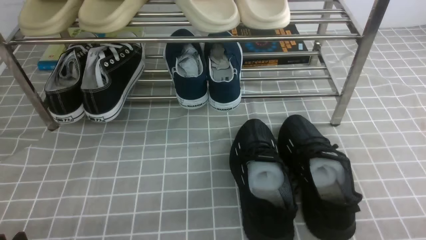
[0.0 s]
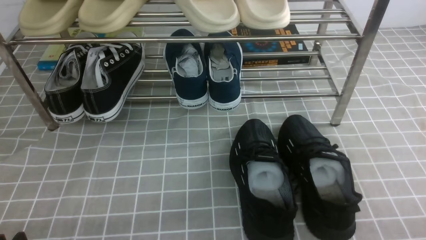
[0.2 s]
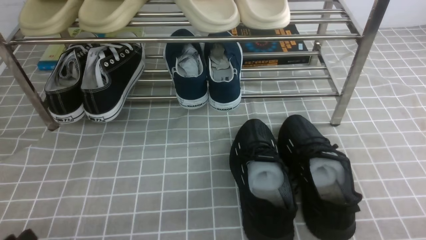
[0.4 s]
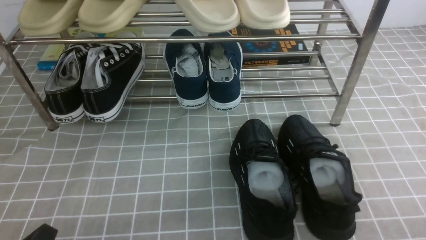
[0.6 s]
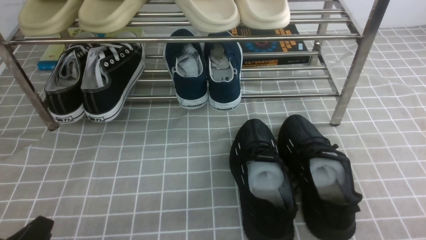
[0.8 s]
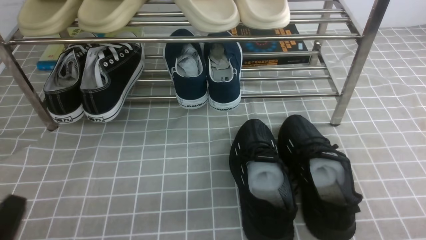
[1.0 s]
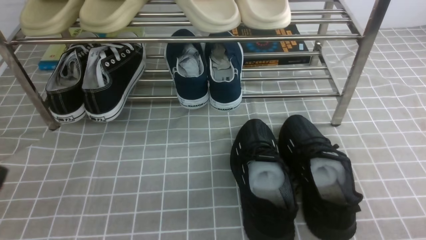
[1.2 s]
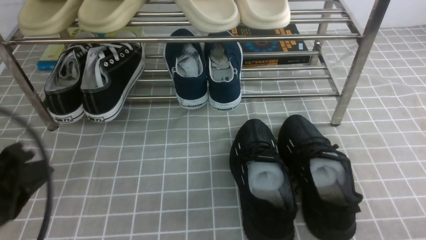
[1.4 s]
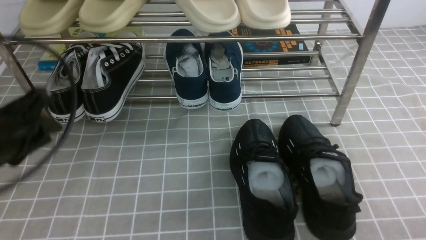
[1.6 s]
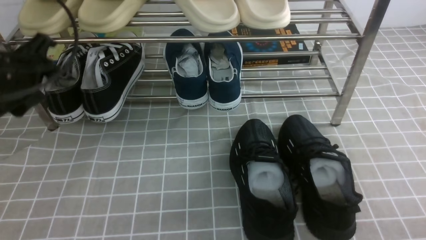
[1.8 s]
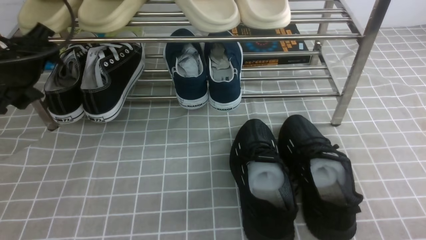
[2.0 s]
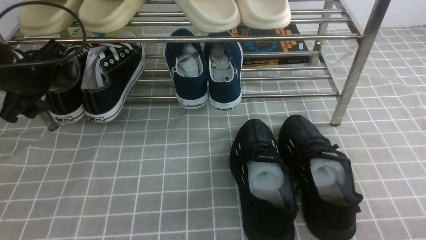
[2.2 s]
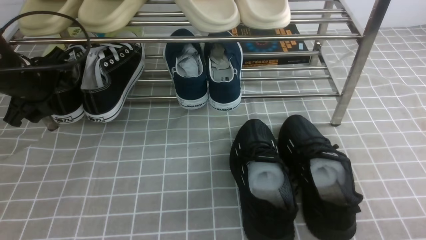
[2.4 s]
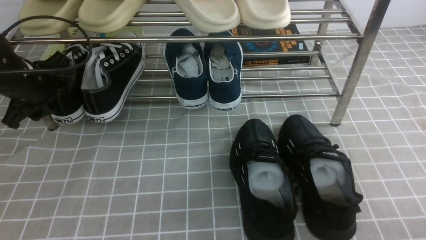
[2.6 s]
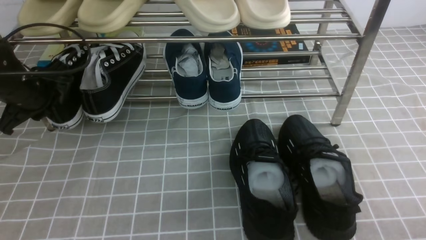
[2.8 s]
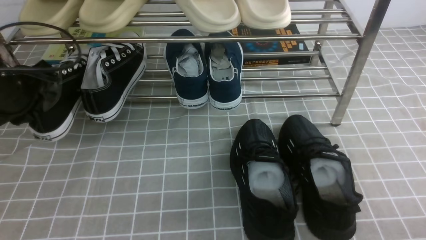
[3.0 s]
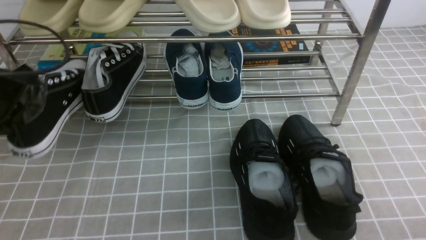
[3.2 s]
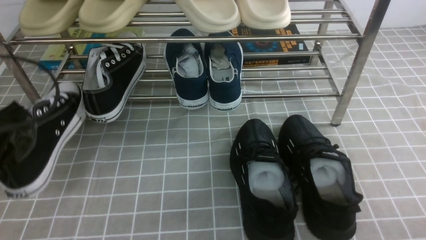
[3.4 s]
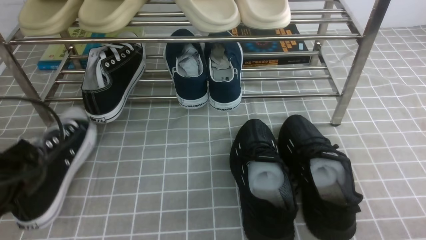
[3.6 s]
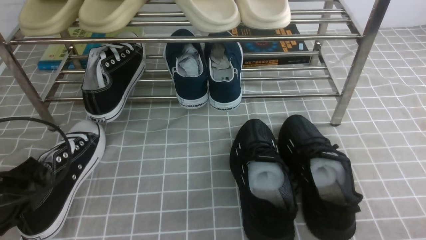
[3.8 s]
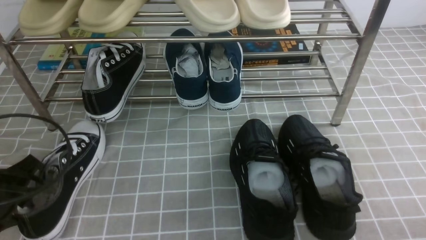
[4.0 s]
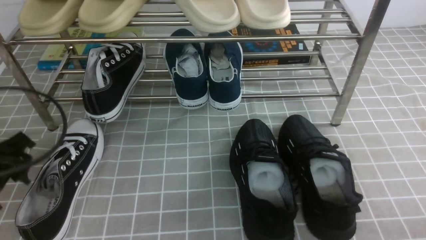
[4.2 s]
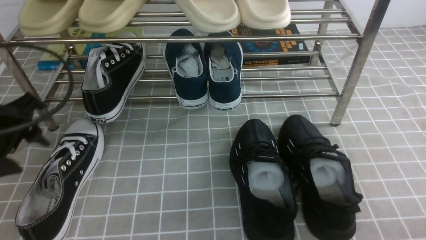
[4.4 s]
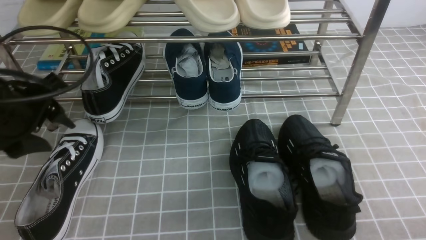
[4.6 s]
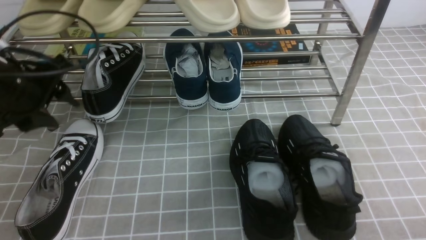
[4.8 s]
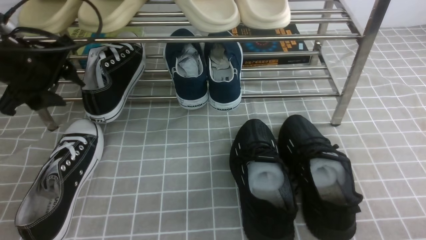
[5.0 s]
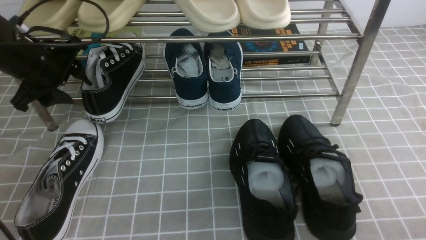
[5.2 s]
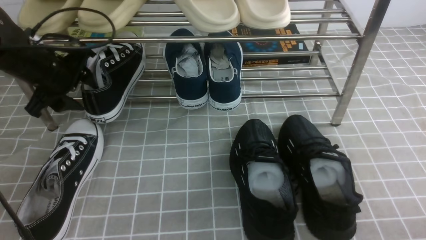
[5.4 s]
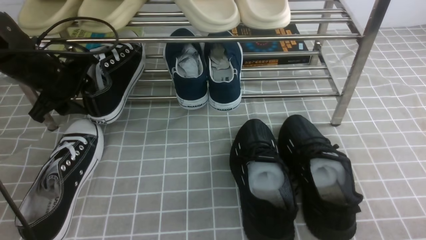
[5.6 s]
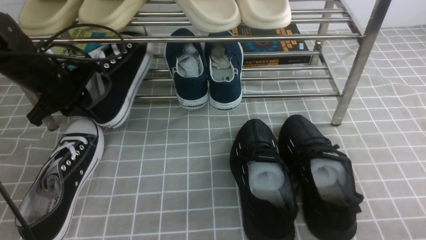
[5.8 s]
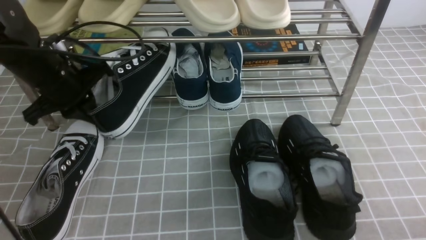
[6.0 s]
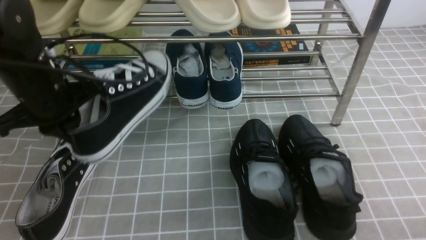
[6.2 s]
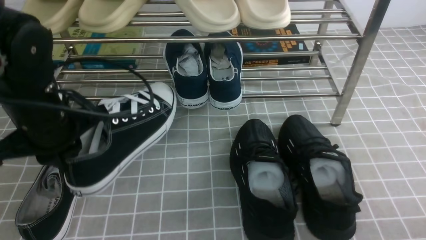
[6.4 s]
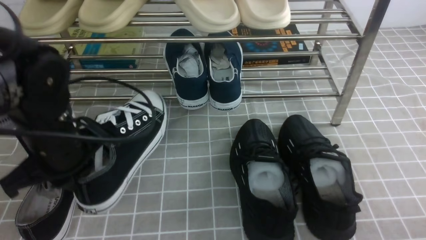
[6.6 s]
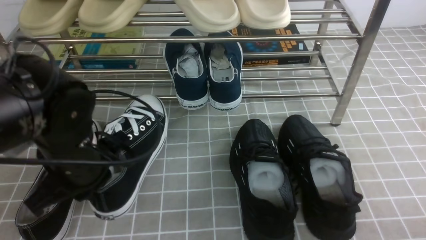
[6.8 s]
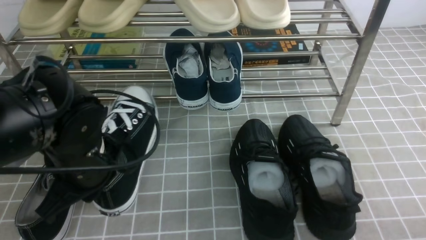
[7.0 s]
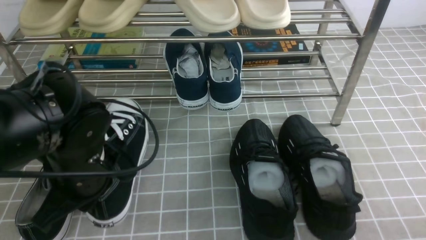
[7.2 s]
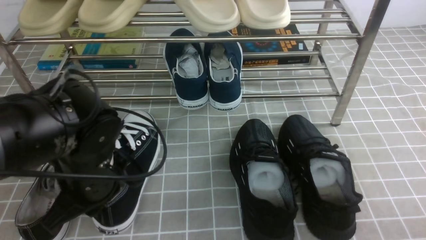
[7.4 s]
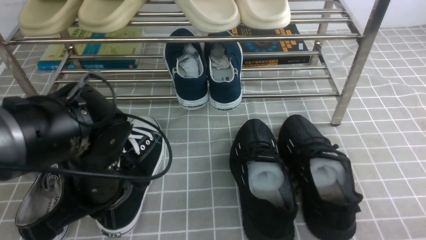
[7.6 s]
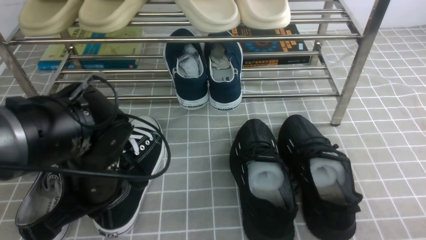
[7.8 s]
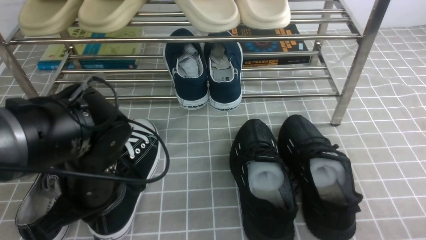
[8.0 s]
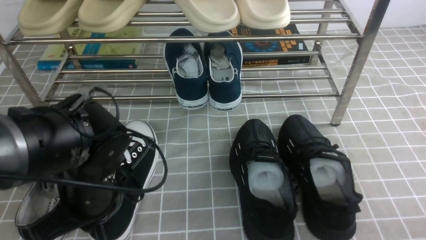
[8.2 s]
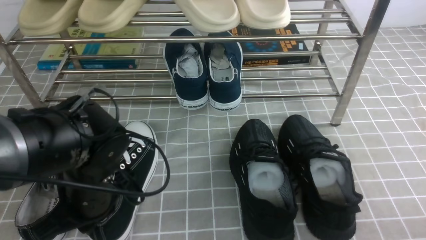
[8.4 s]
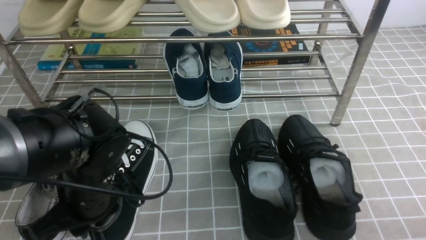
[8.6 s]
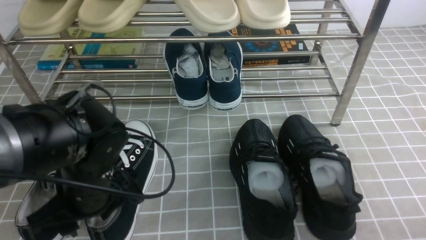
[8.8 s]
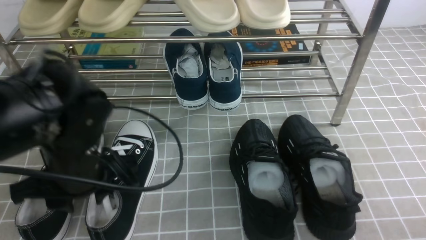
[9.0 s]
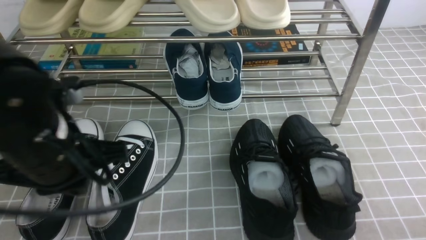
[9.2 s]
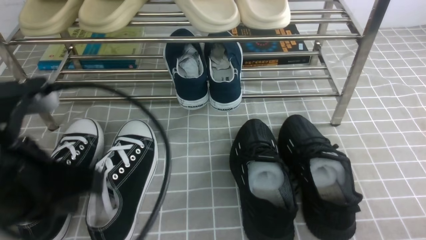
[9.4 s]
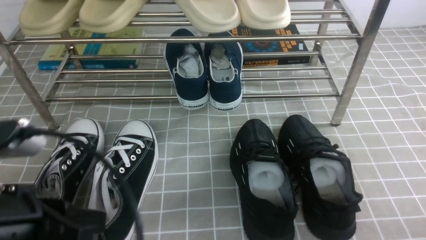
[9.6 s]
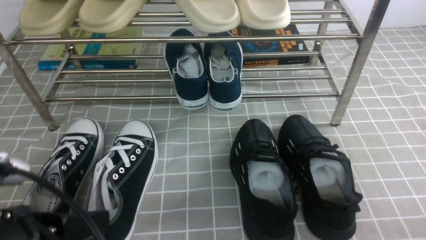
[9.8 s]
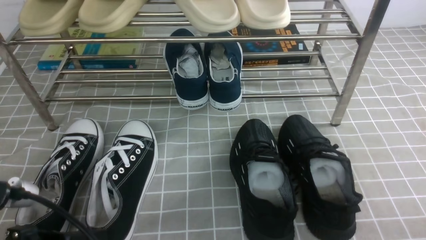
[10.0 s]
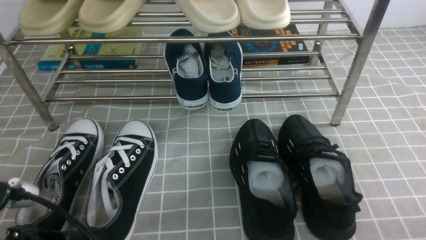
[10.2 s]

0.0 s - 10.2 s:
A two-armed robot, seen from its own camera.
Step, 0.0 s - 2.6 s: use the left arm to clamp a shoe on the left side of the shoe rack.
Step, 2.8 s - 4.0 s: Use your left arm to remove the clamped shoe from the shoe rack and put it down.
Step, 4.2 s - 5.6 s: use the left arm to clamp a shoe on the left side of the shoe rack.
Step, 6.0 s - 9.0 s: Use your left arm to remove the clamped shoe from the shoe rack and put it down.
0.0 s - 1.4 s: The left gripper is displaced upward and forward by approximately 15 cm.
1.4 s - 3.0 s: The left gripper travels forward by approximately 20 cm, and opens, then closes again.
3.0 s - 4.4 s: The left gripper moves backward, some 10 cm, and opens.
4.4 s - 5.8 s: The left gripper moves forward, about 15 cm, and closes.
5.8 s - 7.2 s: The left gripper travels backward and to the right by roughly 20 cm.
7.2 s - 8.8 s: The left gripper opens.
8.8 s - 10.2 s: The left gripper travels backward by about 15 cm, and closes up.

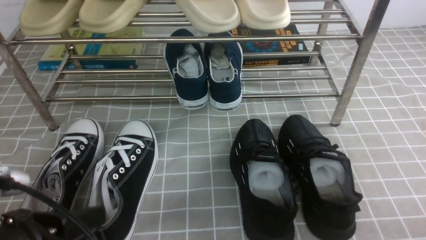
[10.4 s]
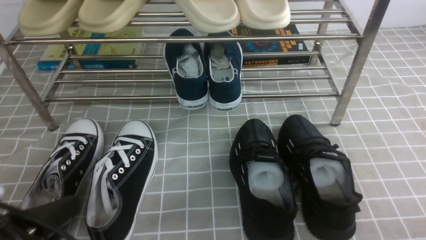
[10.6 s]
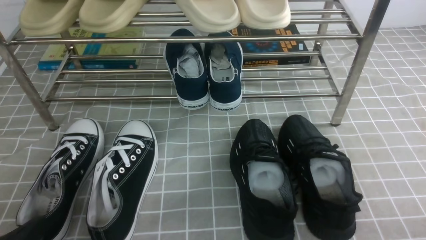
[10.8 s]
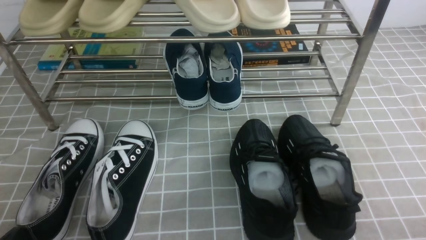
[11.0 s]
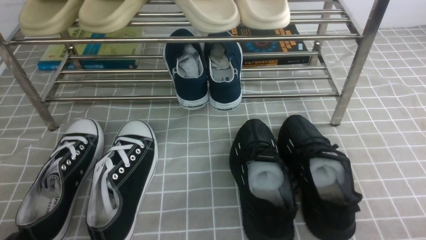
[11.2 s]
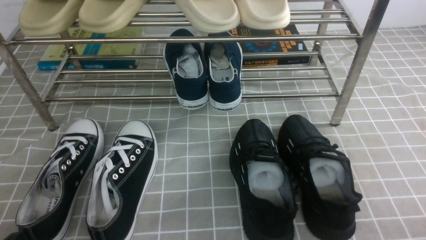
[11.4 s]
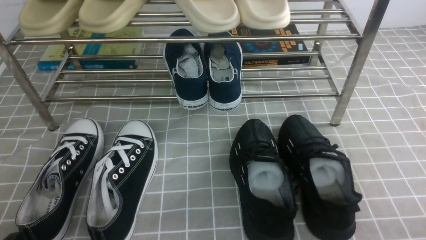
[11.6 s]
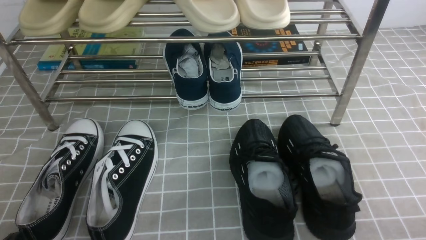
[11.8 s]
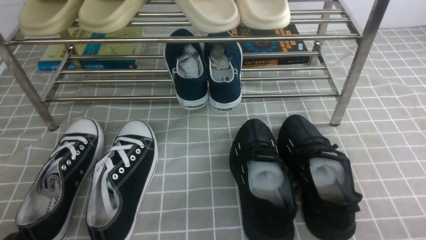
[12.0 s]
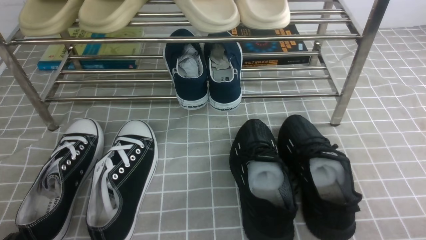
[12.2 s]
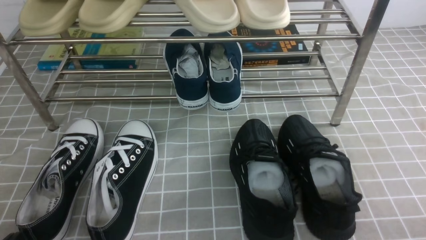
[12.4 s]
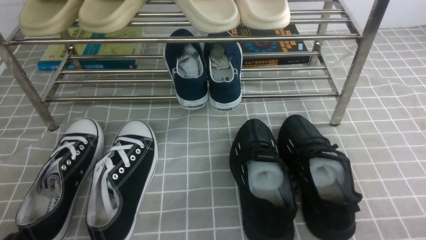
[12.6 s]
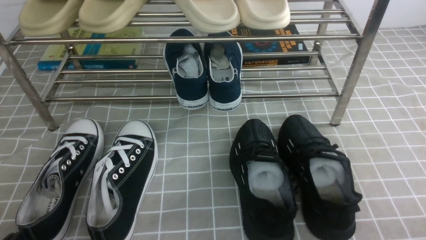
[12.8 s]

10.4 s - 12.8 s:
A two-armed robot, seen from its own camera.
10.4 s - 11.6 s: The left gripper goes approximately 10 cm downward and to the left.
11.6 s - 12.8 s: Both grippers stay about where they are.

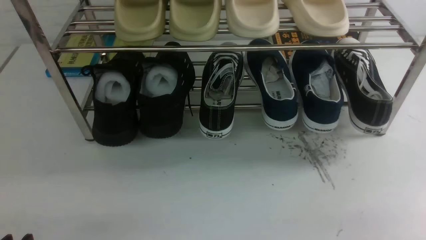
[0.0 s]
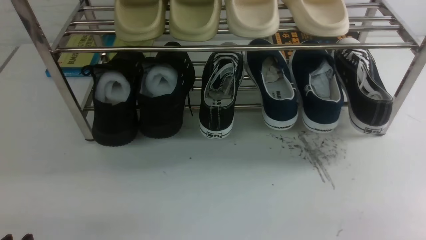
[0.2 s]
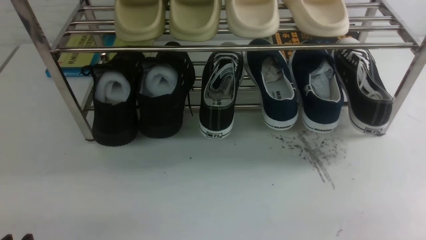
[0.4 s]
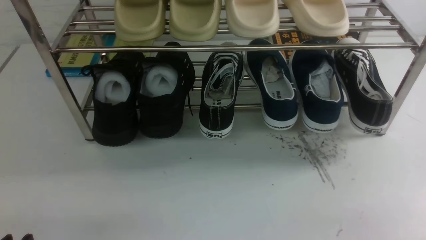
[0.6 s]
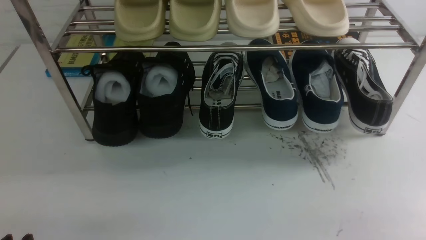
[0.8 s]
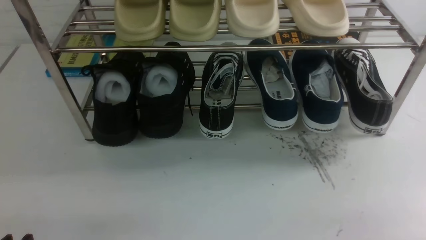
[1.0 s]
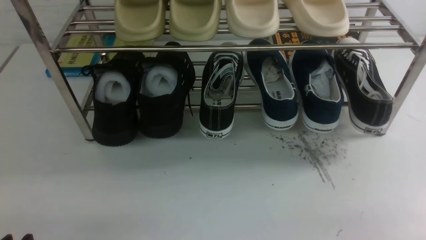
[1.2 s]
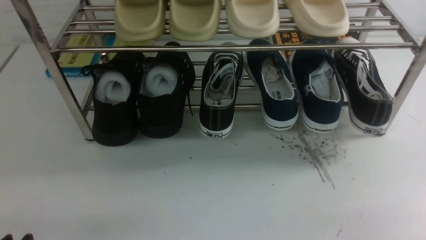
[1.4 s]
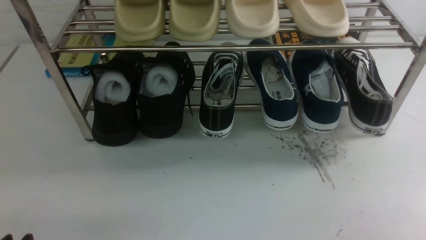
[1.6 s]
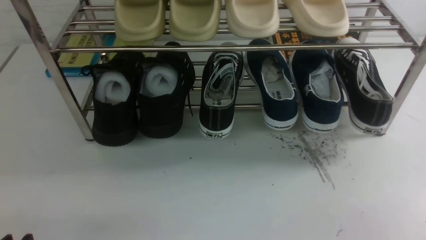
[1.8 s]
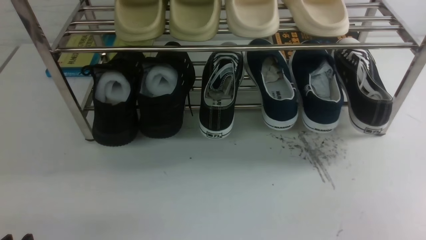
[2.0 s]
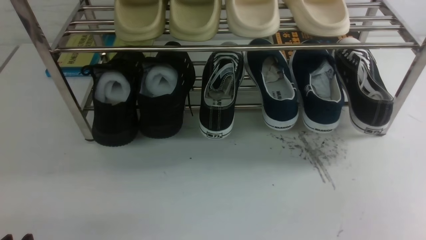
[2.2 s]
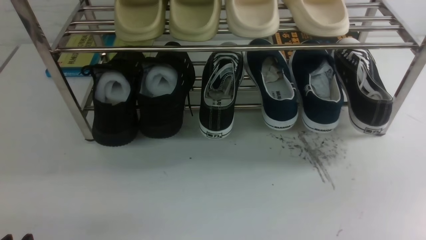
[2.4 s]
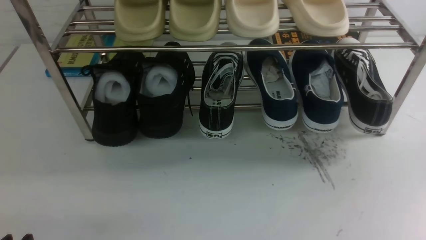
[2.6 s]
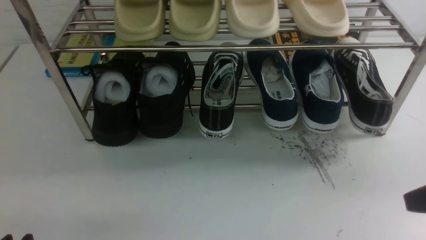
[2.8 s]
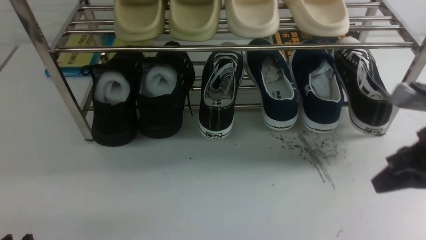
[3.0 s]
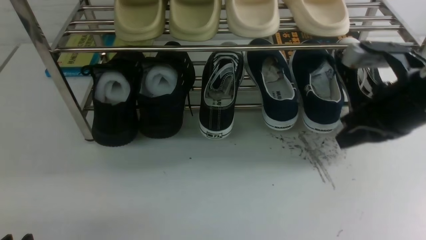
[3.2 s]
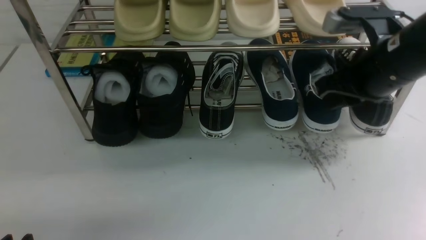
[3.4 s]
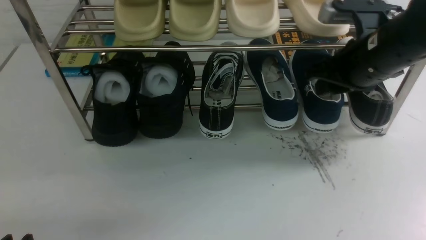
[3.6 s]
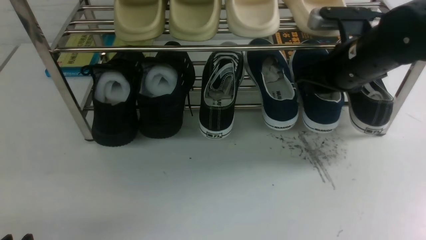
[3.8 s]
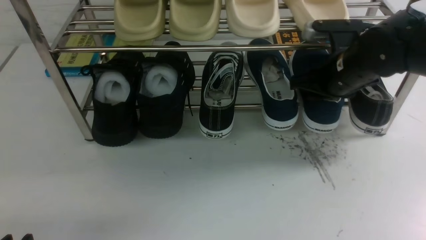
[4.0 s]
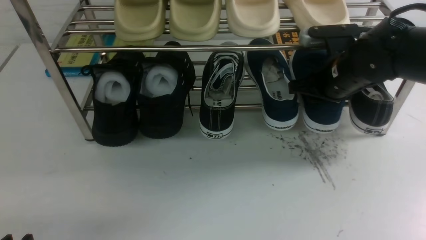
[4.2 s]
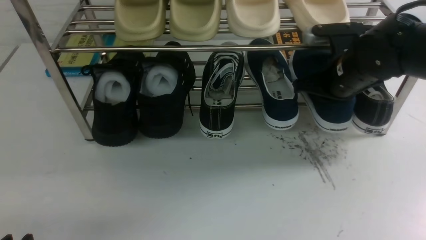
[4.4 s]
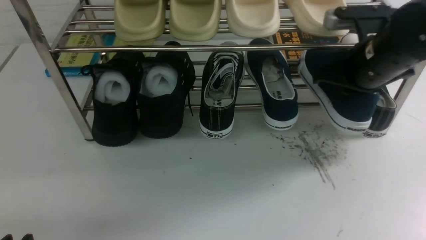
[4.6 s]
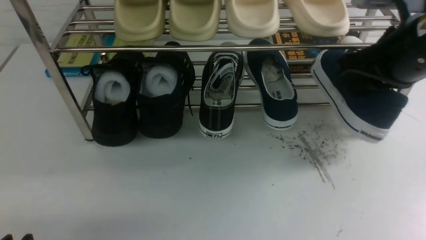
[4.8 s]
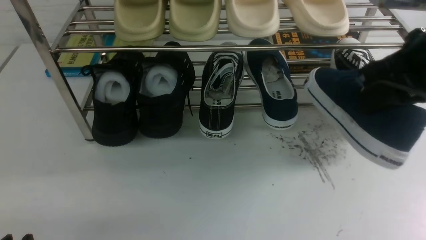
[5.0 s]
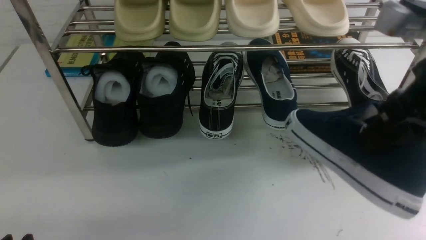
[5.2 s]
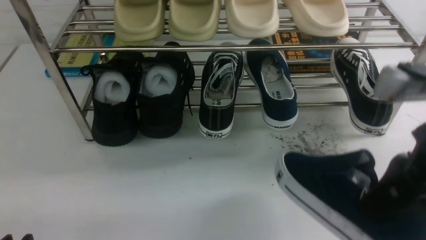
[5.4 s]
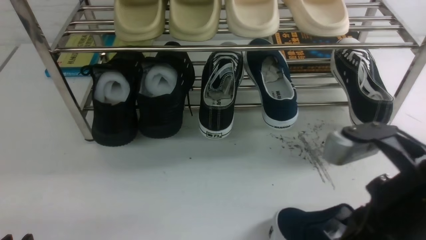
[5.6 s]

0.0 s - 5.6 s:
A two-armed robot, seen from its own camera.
Step, 0.0 s - 4.6 s: use the right arm to clamp a shoe on the right side of the shoe rack.
2.8 s - 4.2 s: The right gripper shifts roughly 25 cm forward and to the left, and opens its fingers.
4.2 s - 5.6 s: The right gripper goes roughly 20 cm backward, and closes its fingers.
